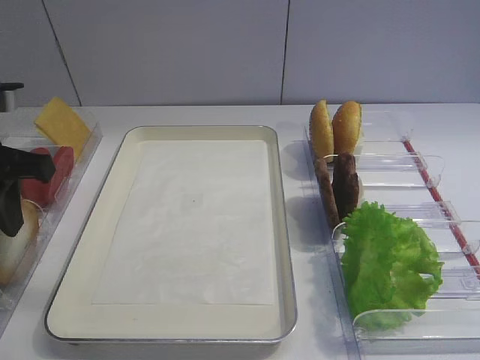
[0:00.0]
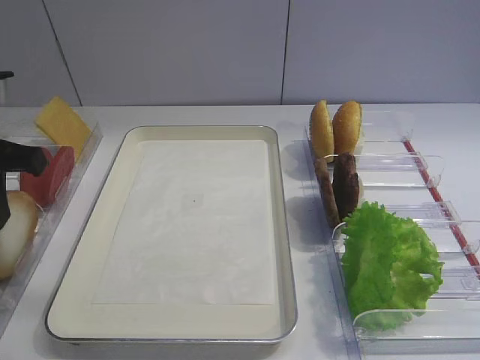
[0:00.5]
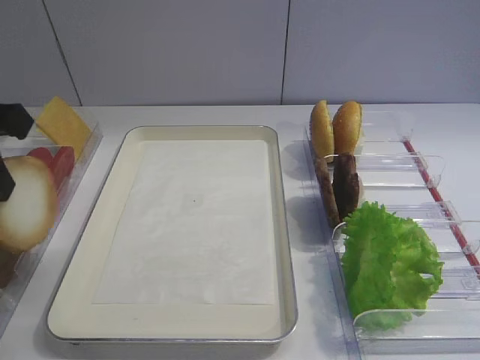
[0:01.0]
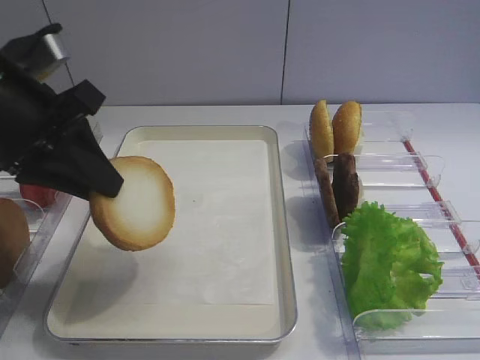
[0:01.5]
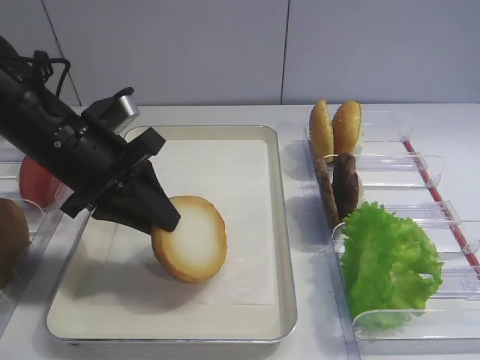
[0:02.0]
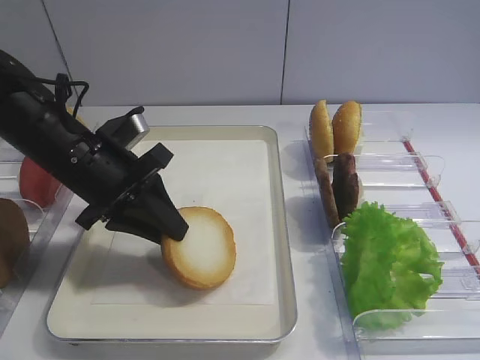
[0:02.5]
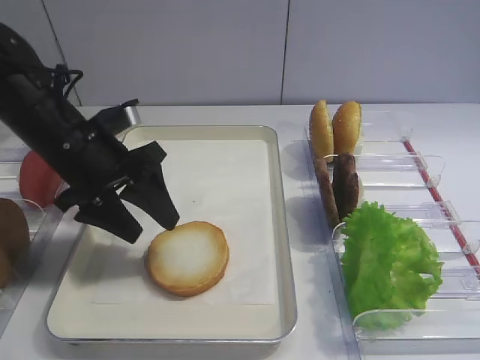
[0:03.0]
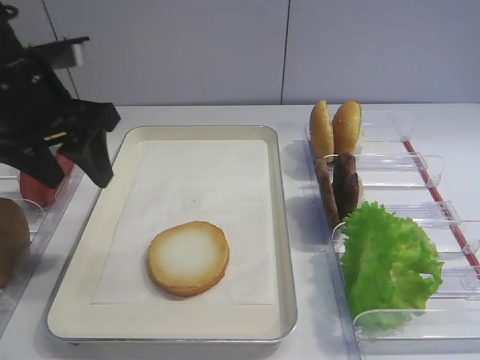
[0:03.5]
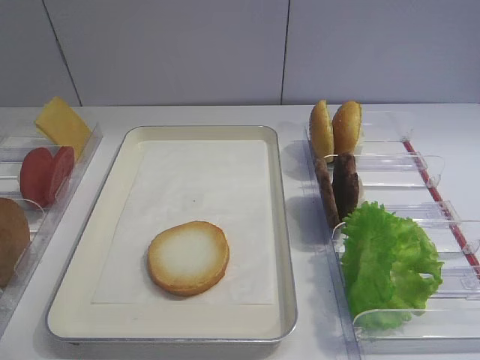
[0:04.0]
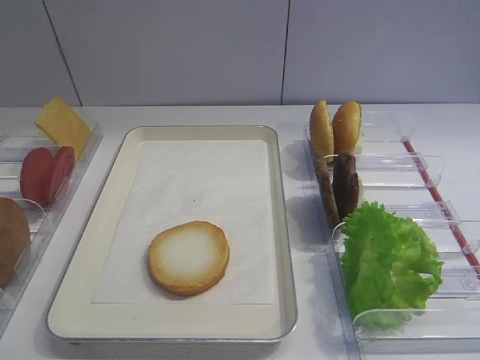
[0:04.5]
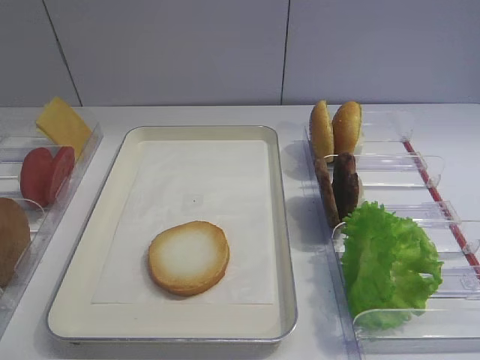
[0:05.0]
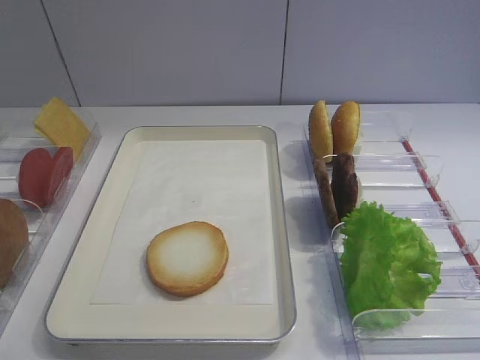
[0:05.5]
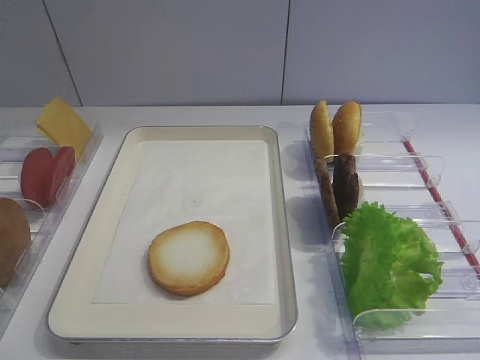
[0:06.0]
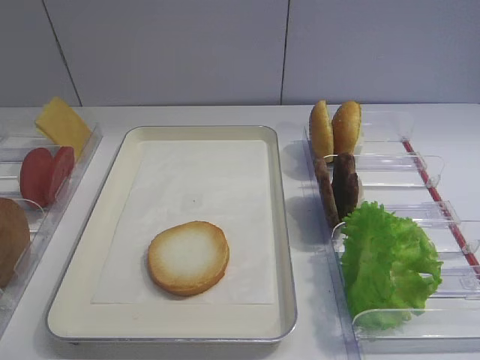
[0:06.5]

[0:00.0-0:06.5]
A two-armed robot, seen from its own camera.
Step, 0:01.0 to 0:03.0: Place the bread slice on the tray with the left gripper.
0:00.0 to 0:02.0: The left gripper shifts about 10 cm to the right, and closes.
0:02.0 to 0:04.5: The left gripper shifts about 30 cm backward, upward and to the left, and opens.

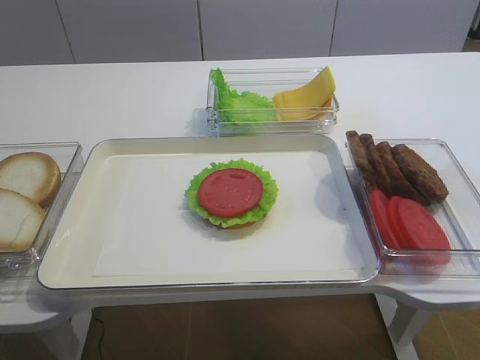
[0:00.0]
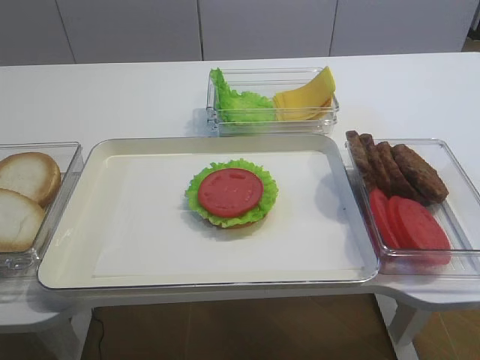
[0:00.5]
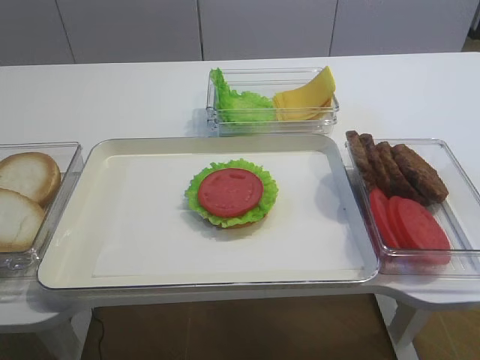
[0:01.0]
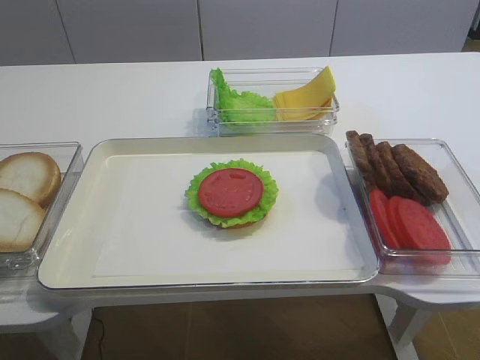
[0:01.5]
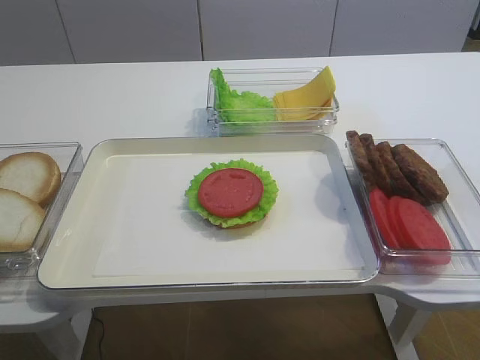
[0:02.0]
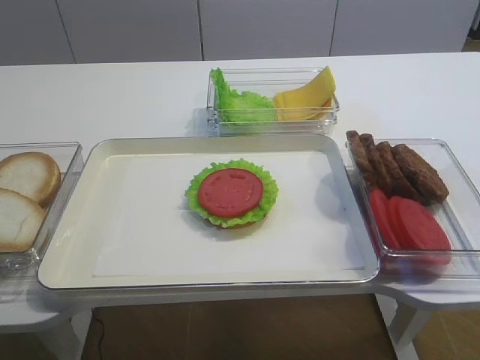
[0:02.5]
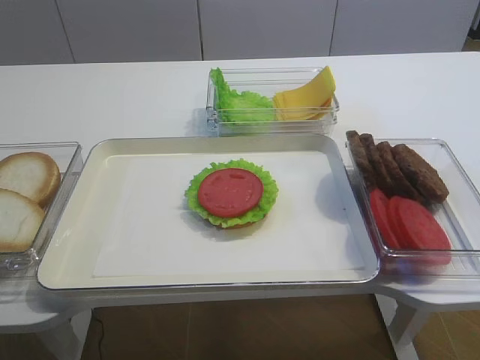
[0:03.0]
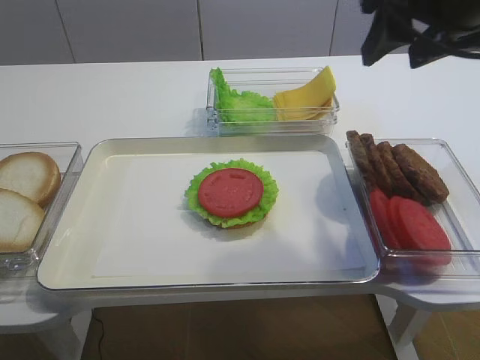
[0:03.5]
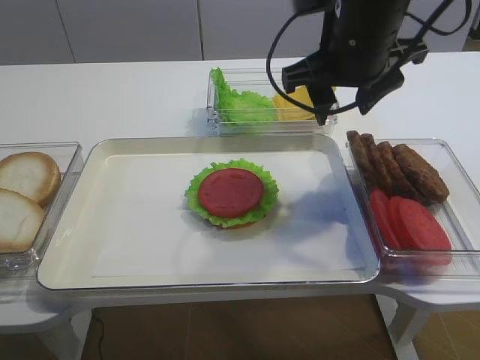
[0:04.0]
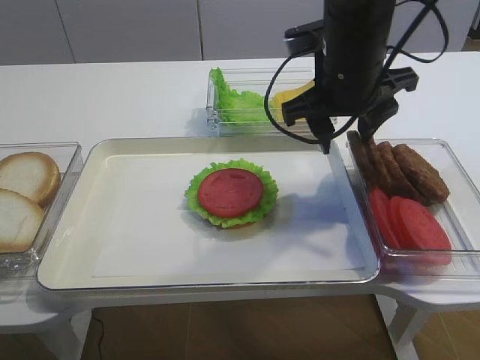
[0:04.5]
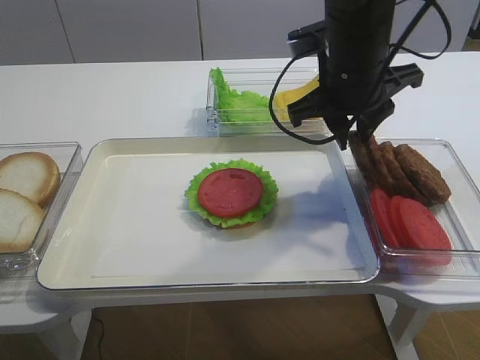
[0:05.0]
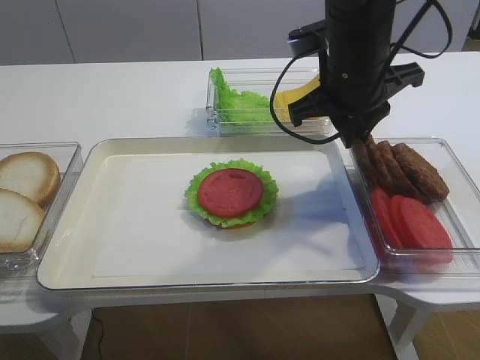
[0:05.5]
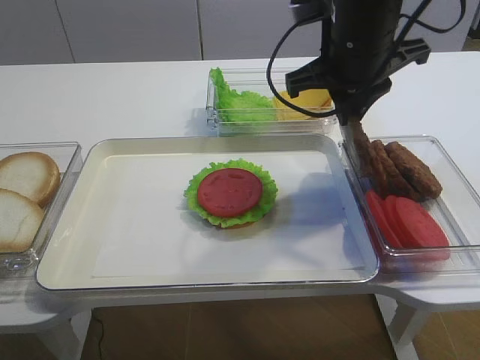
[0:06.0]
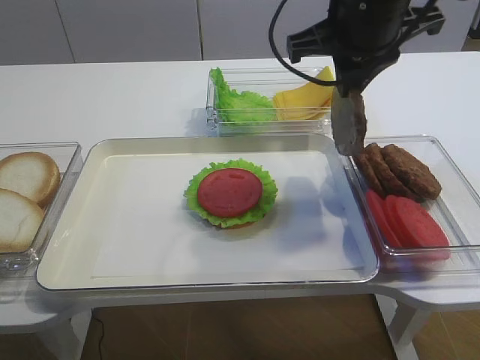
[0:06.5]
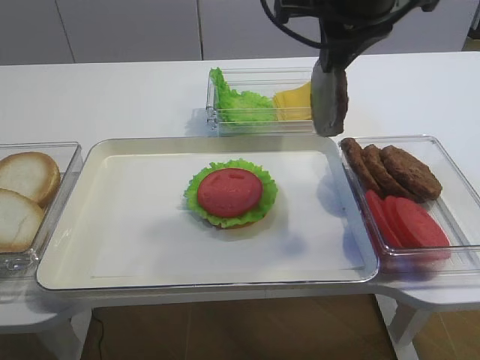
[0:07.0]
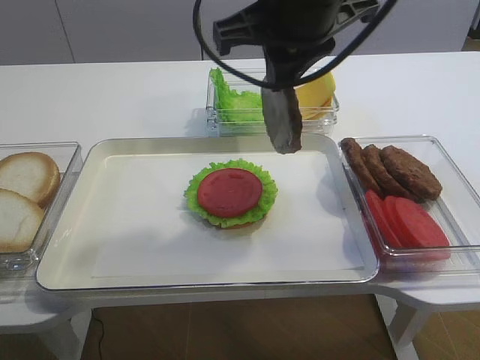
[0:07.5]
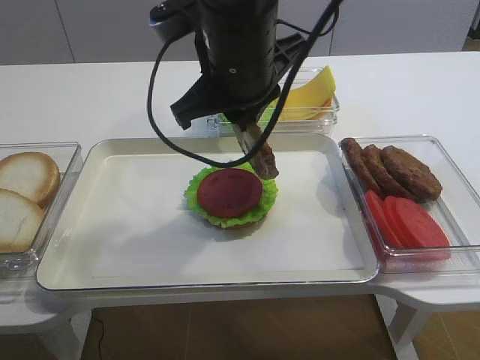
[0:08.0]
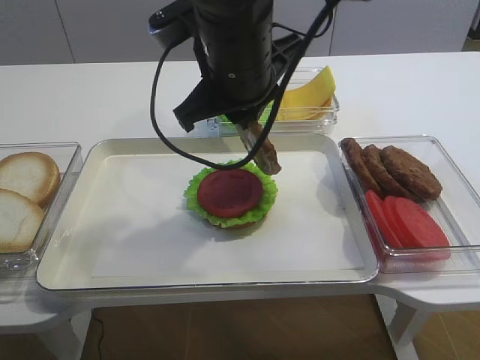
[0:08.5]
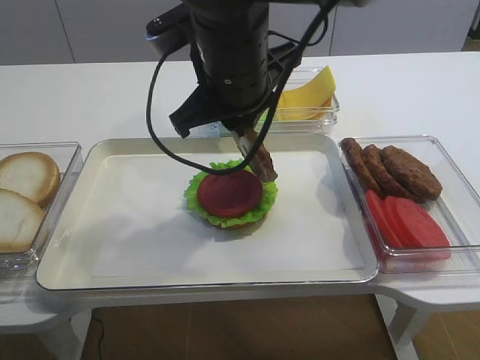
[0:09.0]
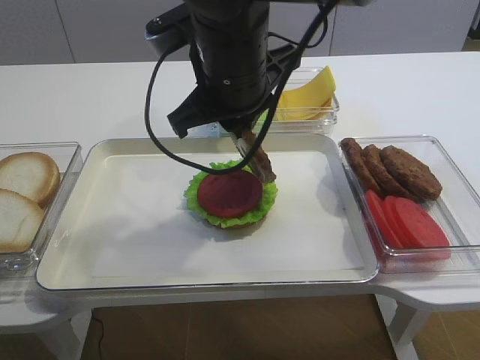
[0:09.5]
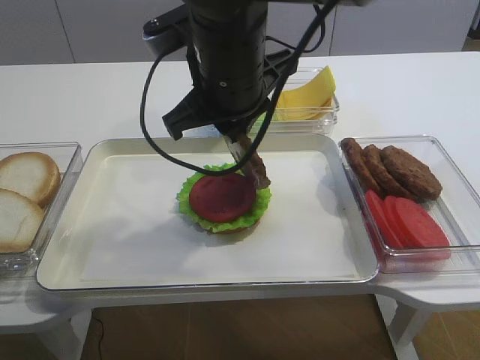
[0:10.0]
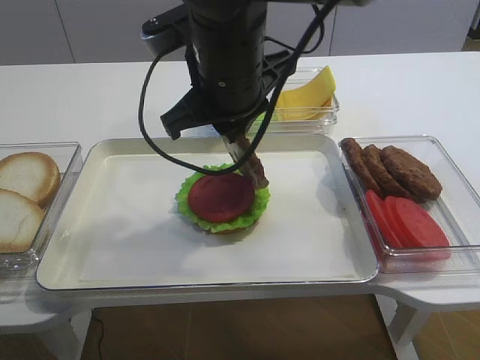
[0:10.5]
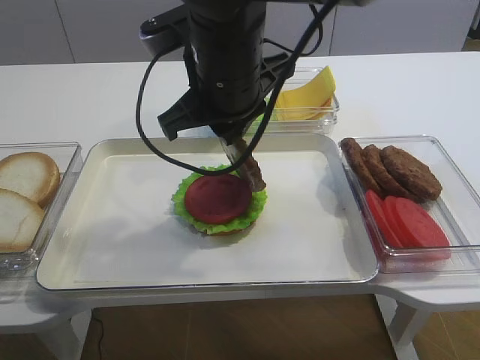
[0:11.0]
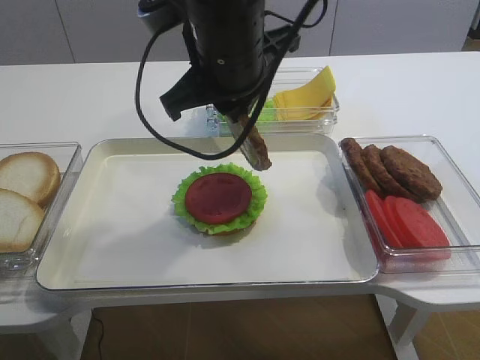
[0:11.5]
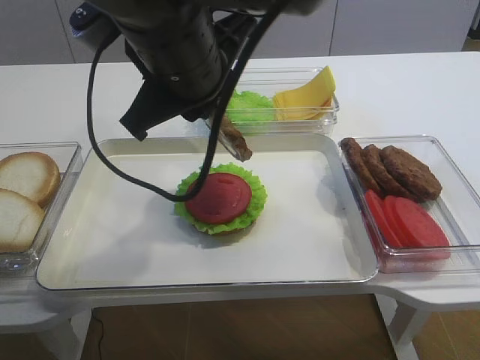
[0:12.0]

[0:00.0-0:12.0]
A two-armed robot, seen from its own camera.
Step, 0:00.0 to 0:06.0: Pick up the cutlet with the right gripper.
0:02.0 to 0:04.0: The right gripper travels forward and to the left by roughly 35 cm.
0:04.0 to 0:06.0: The right gripper closes.
0:06.0 to 0:08.0: The right gripper heads to the left, covering roughly 10 cm.
0:08.0 to 0:10.0: There are only small adjustments of the grippers.
0:10.0 to 0:12.0: The right gripper moves roughly 5 cm.

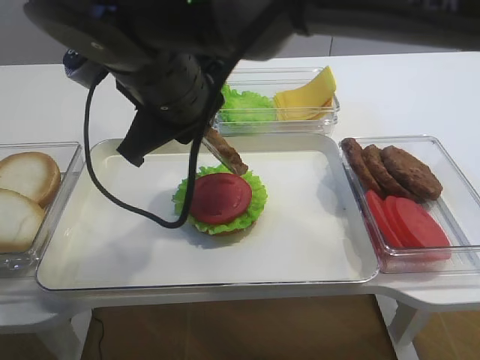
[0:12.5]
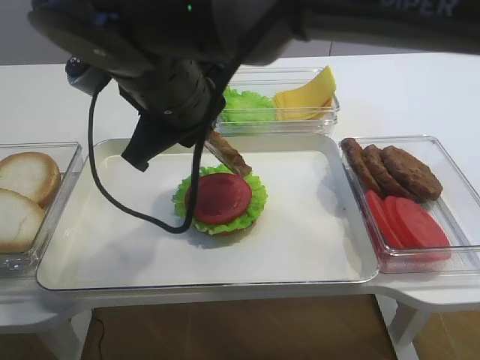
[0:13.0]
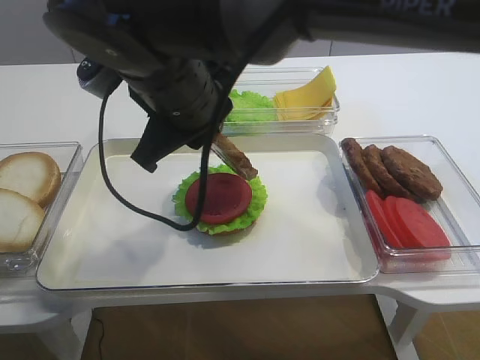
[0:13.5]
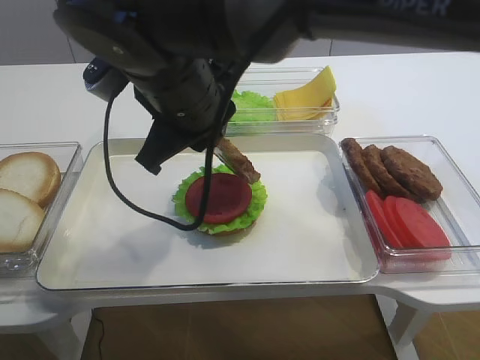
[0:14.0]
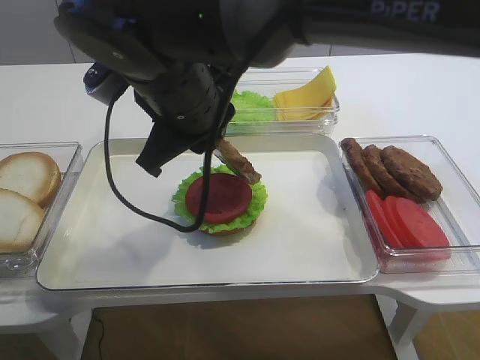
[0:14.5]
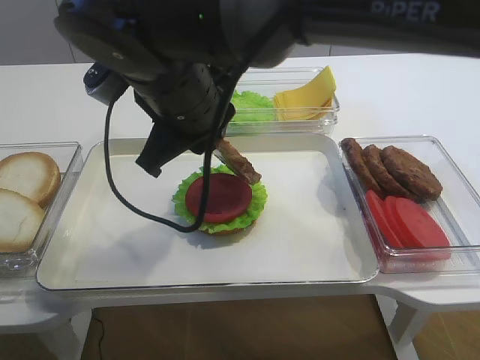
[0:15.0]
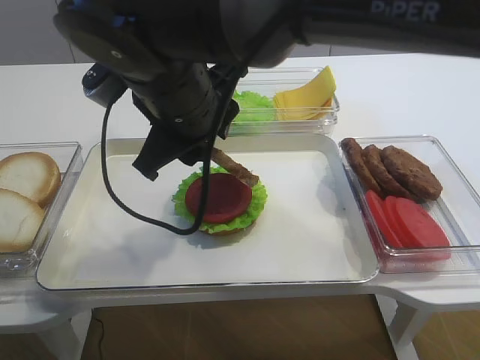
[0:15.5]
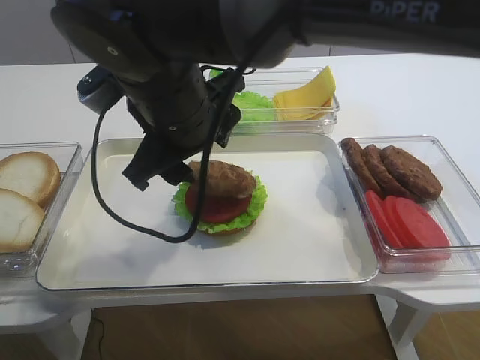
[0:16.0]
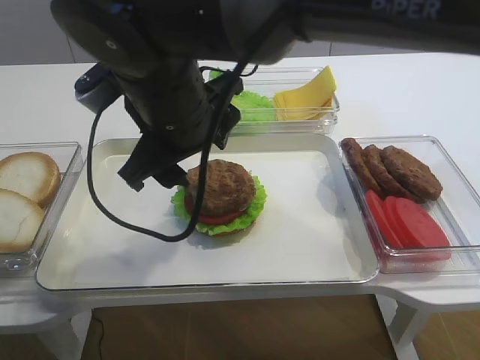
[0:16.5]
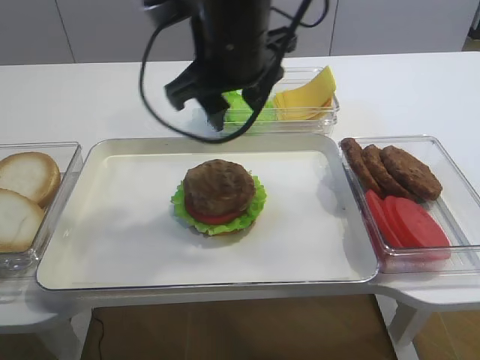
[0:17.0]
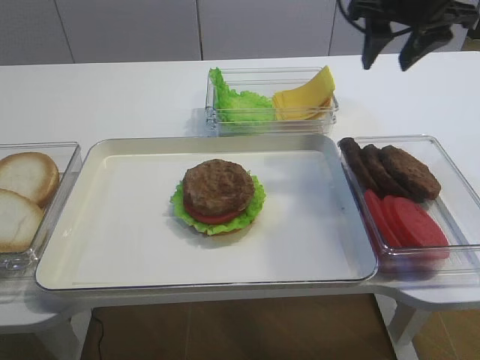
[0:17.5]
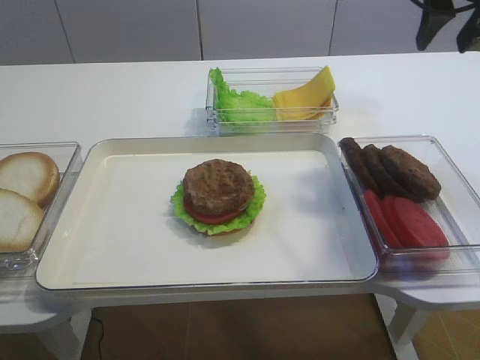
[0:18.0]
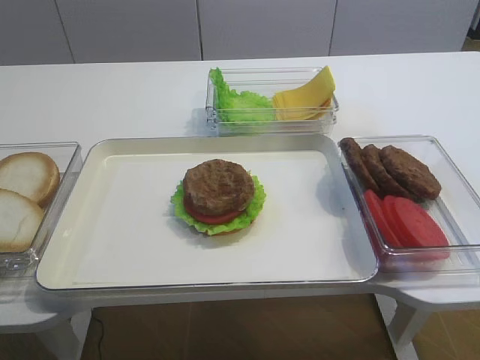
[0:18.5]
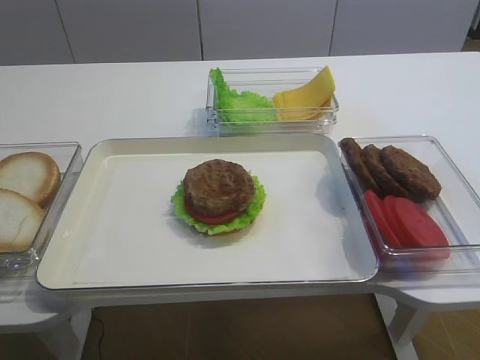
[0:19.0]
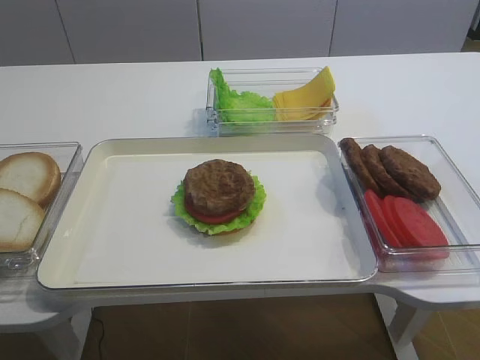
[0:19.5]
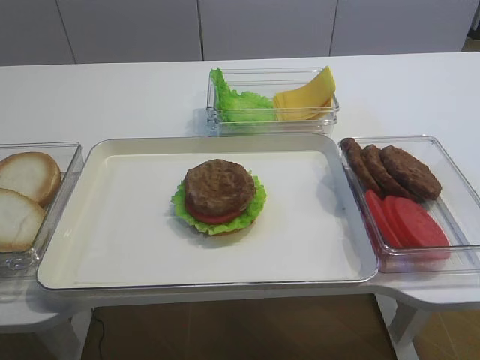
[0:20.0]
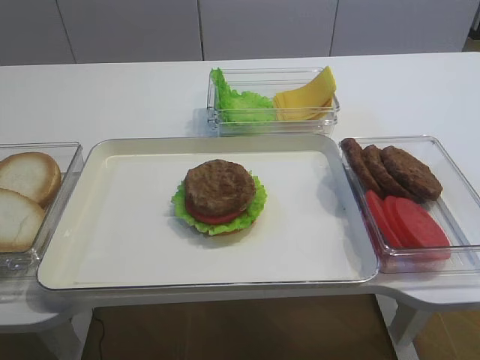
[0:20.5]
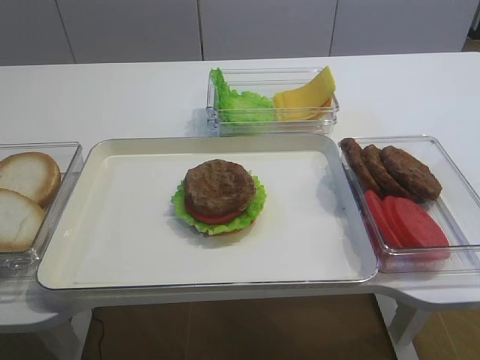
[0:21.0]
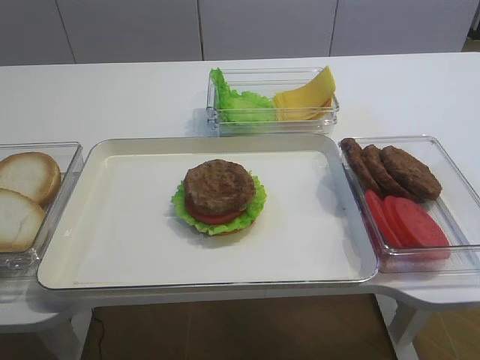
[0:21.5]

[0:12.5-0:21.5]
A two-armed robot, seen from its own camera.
Step, 0:12.5 to 0:16.0: Place the cutlet on the tomato slice with the right gripper.
0:12.5 to 0:14.5: The grippers move only a little.
0:14.5 to 0:17.0: The right gripper changes place by approximately 10 cm, and opens its fingers.
0:17.0 to 0:19.5: The right gripper heads backward and to the right, covering some 40 cm.
